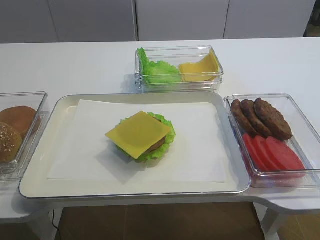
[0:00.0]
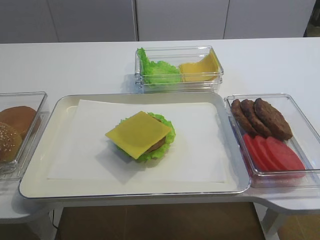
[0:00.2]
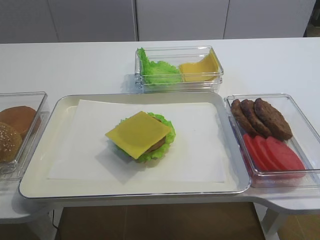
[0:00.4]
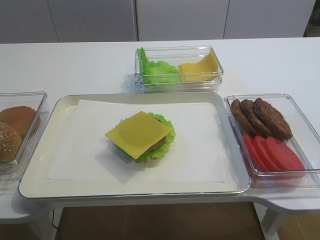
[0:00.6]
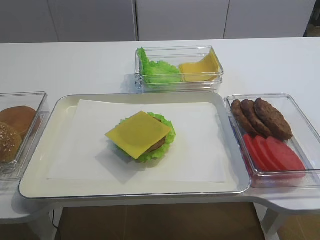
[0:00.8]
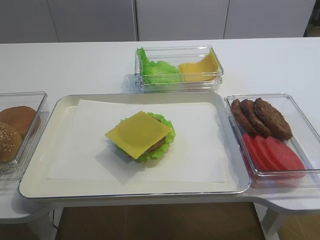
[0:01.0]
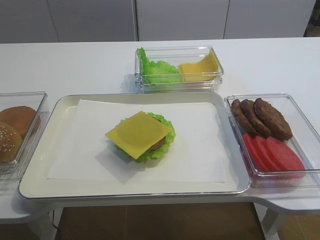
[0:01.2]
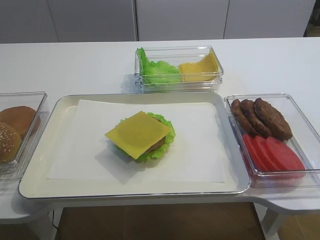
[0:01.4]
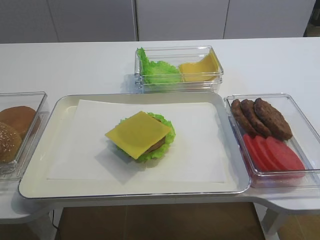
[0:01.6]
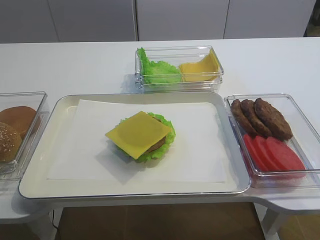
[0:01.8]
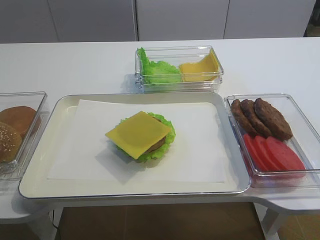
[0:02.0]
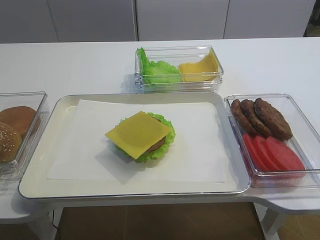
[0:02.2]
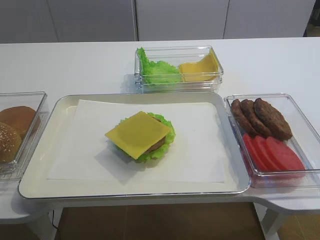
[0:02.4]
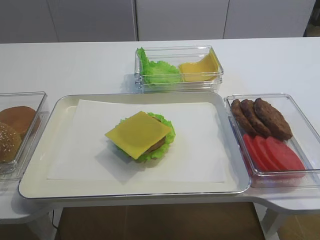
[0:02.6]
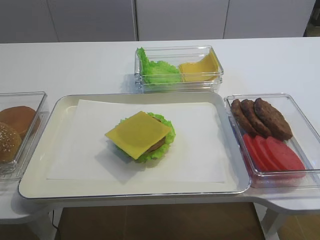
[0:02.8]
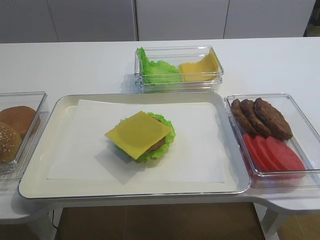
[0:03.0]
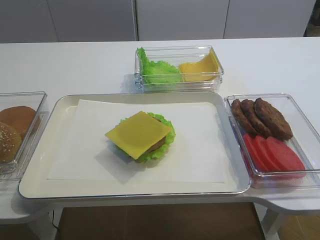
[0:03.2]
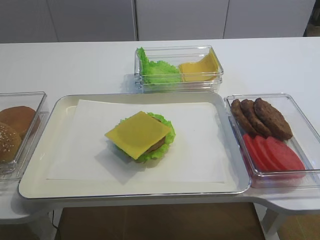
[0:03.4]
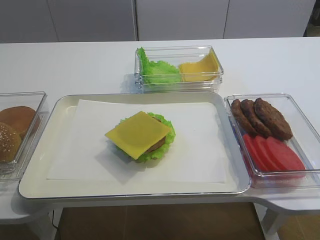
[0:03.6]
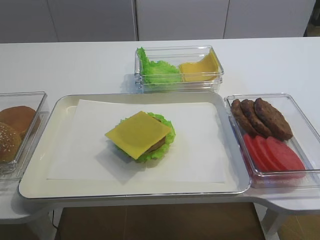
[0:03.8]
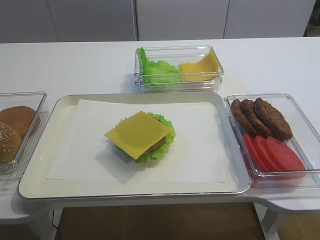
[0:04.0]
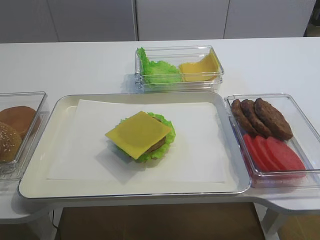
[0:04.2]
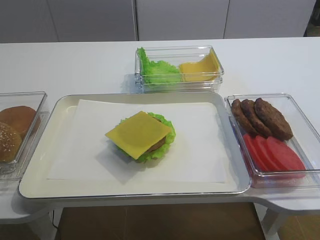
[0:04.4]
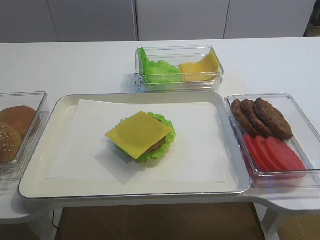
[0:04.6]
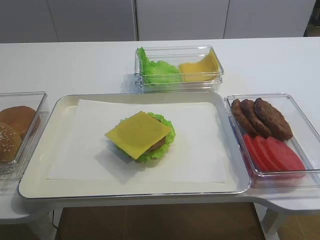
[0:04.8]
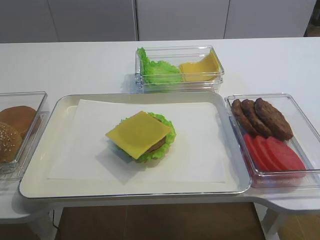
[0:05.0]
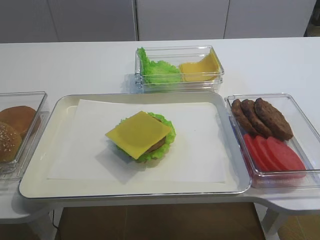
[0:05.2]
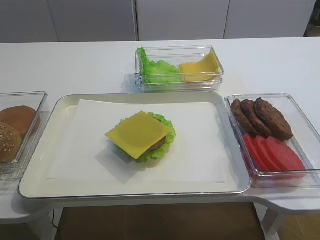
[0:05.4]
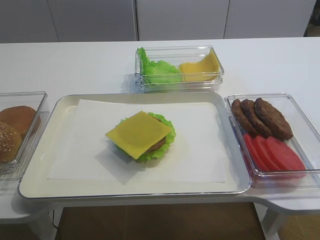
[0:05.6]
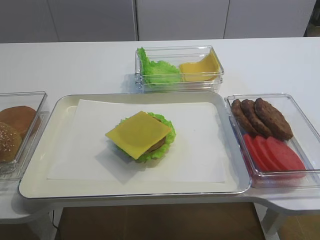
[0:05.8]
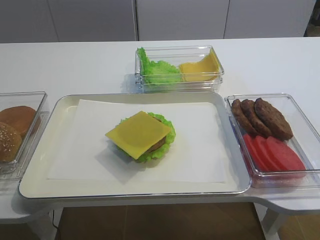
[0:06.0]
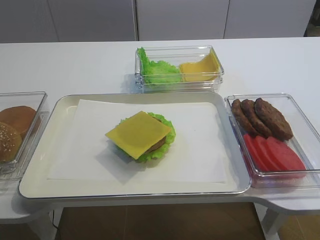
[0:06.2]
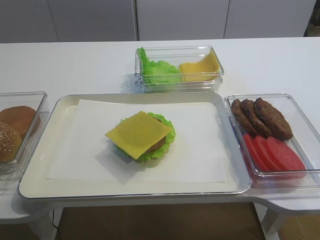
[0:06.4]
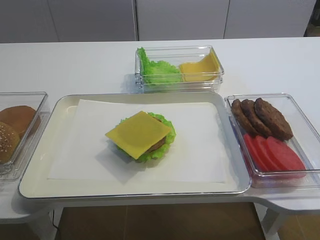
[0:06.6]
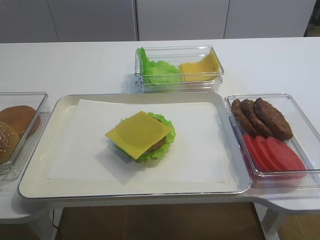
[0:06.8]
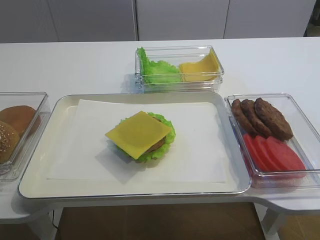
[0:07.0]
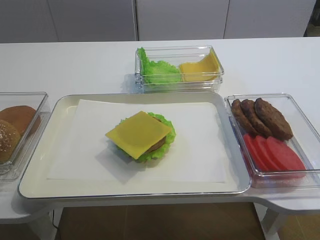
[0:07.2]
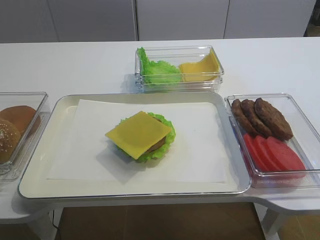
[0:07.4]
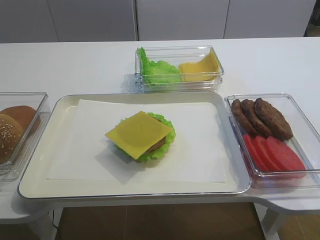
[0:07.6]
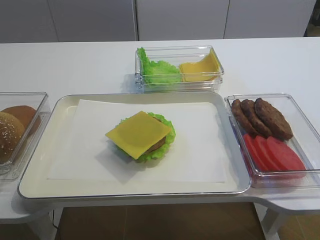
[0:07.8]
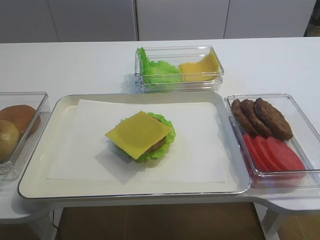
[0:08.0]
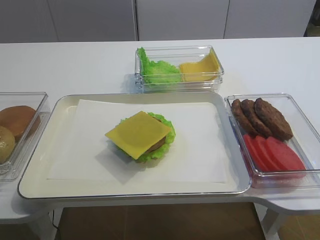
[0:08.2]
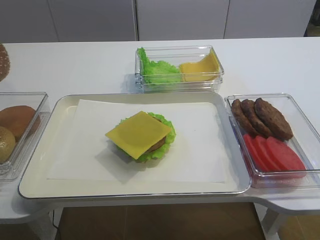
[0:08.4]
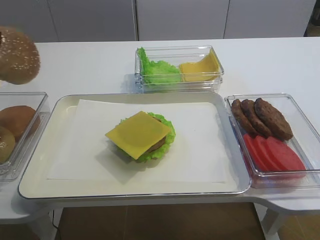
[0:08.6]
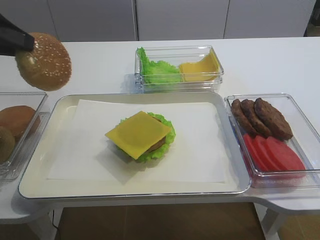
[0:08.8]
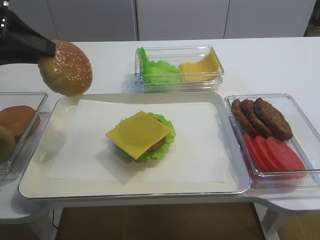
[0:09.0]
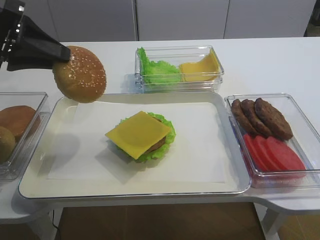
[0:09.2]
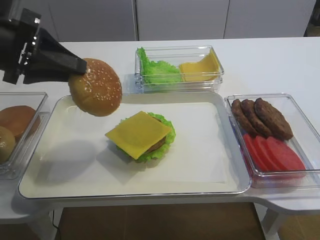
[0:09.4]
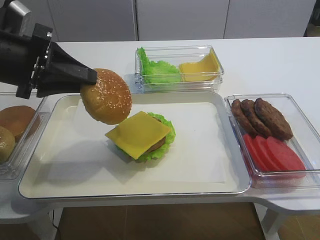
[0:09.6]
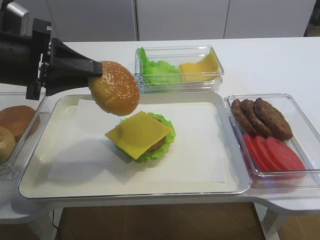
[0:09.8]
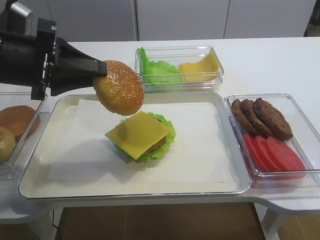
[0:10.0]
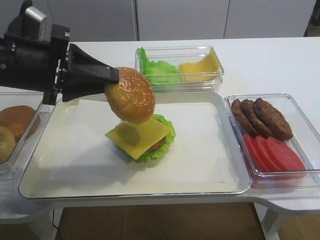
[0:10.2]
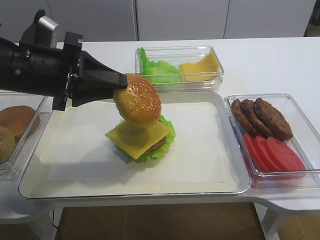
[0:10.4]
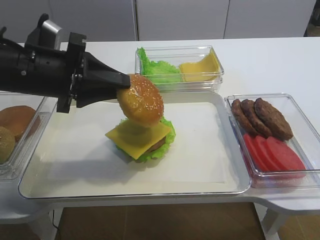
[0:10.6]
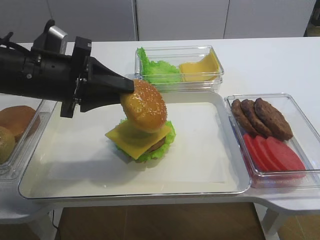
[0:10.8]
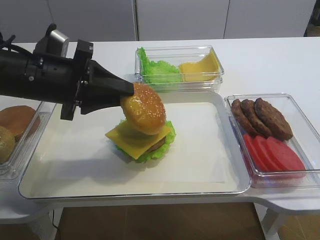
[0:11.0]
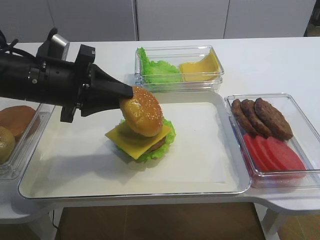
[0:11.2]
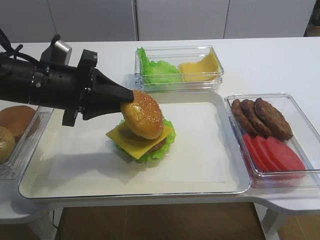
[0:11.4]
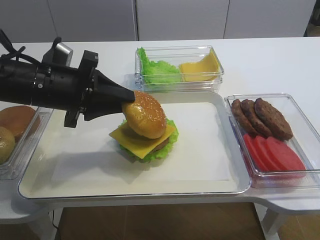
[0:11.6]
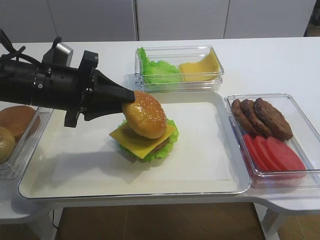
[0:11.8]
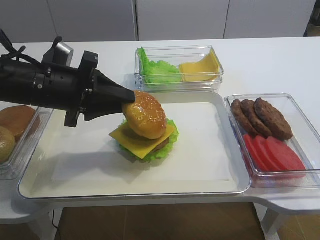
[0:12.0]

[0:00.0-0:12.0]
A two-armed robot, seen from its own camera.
0:07.6 to 0:09.0: The left gripper goes approximately 10 cm to the right.
0:09.0 to 0:10.4: The left gripper goes approximately 10 cm to the right and downward.
0:10.4 to 0:12.0: The grippers move only a little.

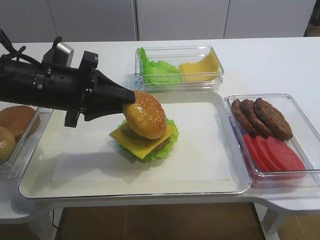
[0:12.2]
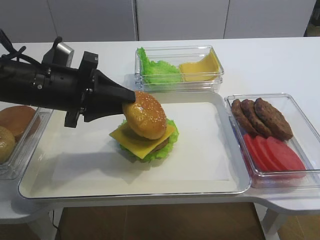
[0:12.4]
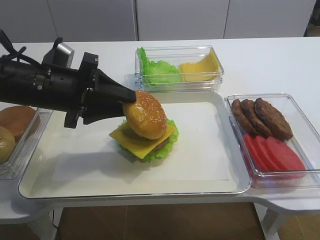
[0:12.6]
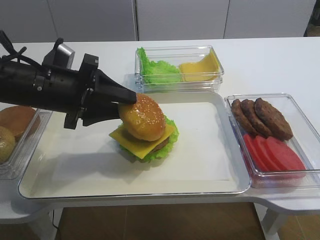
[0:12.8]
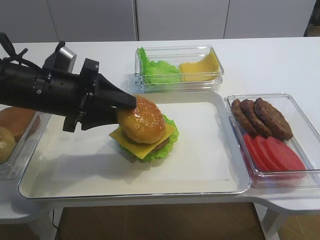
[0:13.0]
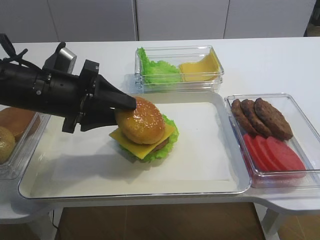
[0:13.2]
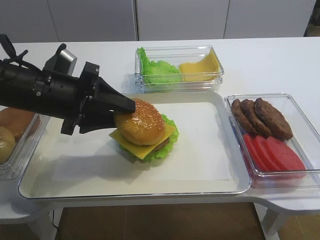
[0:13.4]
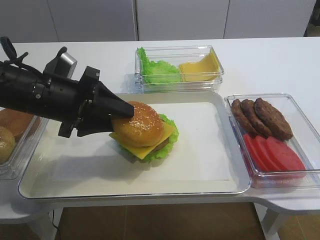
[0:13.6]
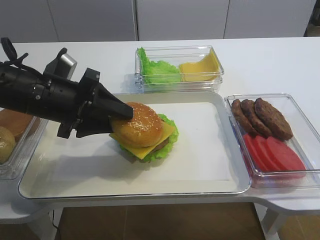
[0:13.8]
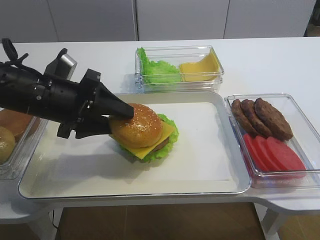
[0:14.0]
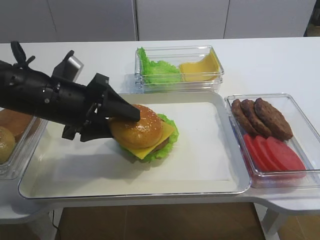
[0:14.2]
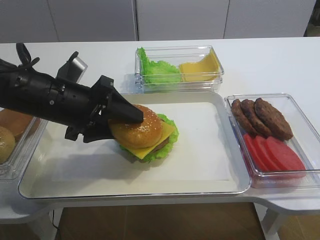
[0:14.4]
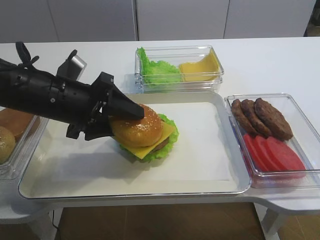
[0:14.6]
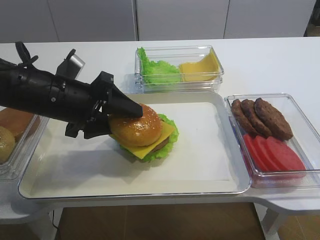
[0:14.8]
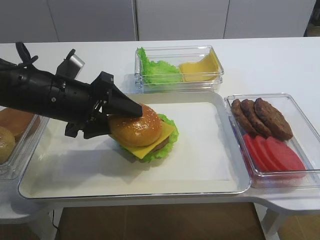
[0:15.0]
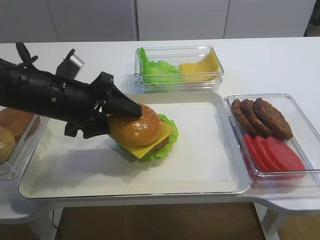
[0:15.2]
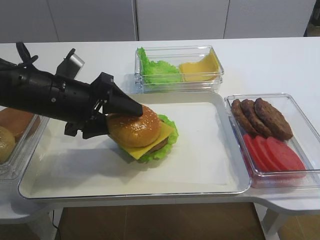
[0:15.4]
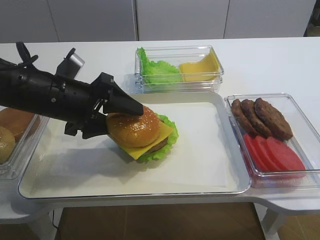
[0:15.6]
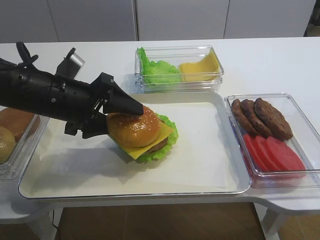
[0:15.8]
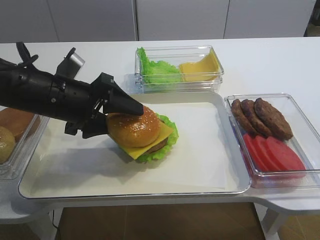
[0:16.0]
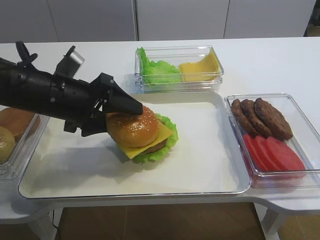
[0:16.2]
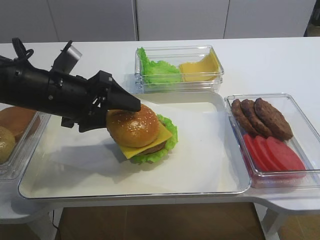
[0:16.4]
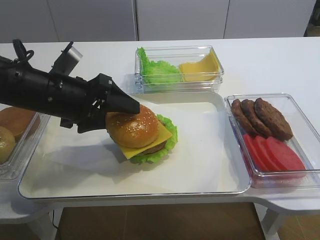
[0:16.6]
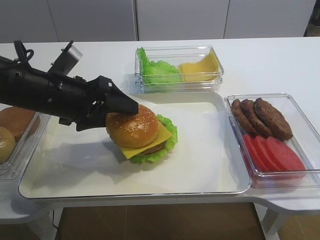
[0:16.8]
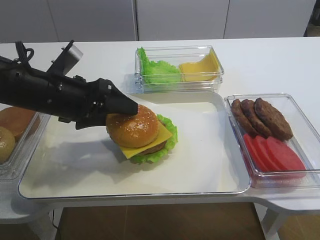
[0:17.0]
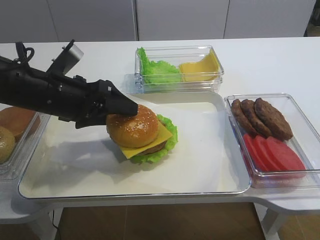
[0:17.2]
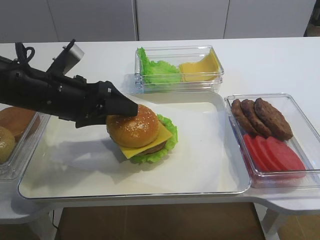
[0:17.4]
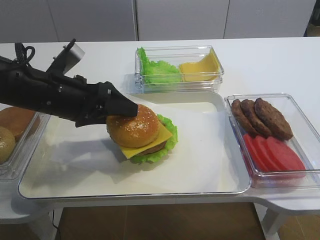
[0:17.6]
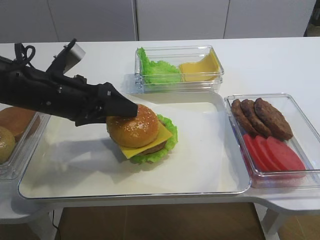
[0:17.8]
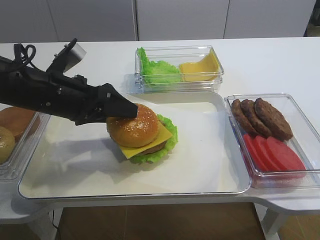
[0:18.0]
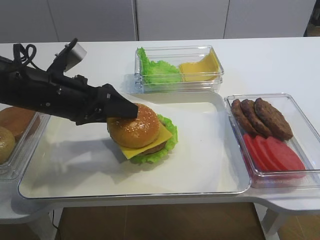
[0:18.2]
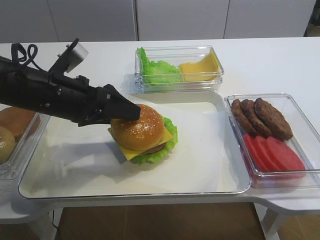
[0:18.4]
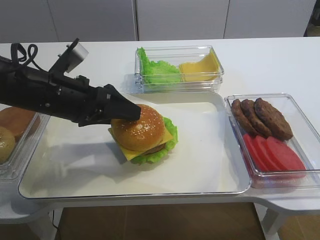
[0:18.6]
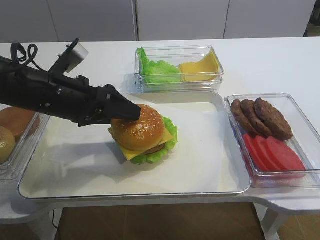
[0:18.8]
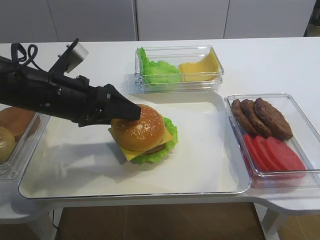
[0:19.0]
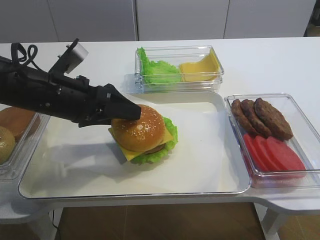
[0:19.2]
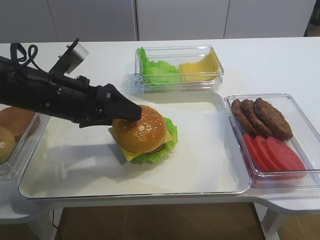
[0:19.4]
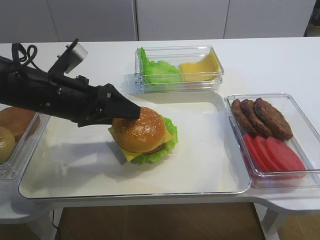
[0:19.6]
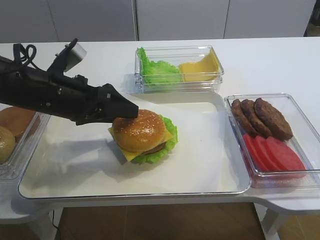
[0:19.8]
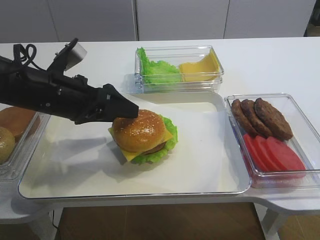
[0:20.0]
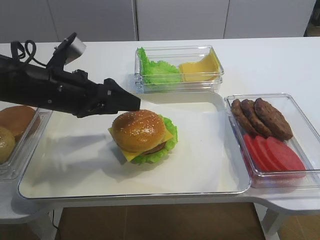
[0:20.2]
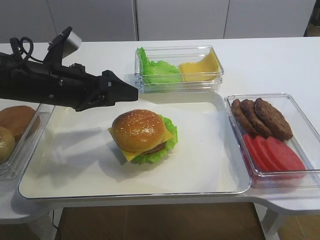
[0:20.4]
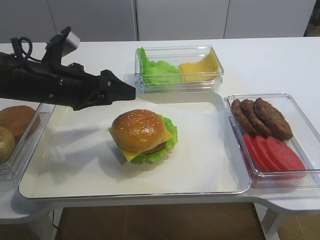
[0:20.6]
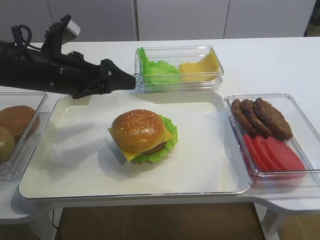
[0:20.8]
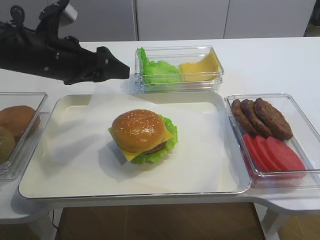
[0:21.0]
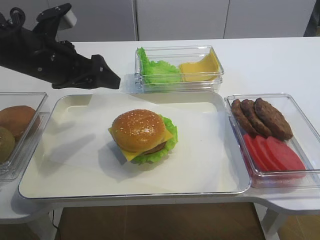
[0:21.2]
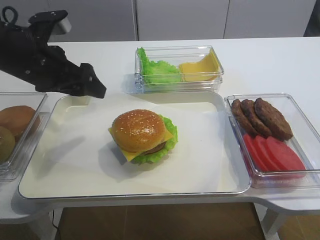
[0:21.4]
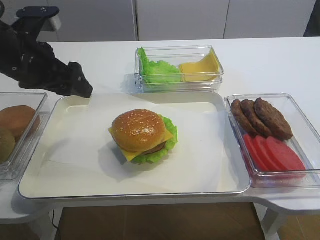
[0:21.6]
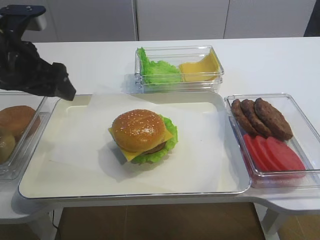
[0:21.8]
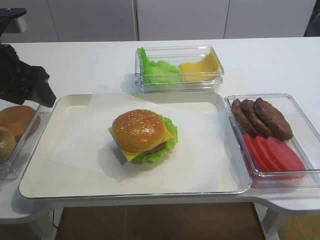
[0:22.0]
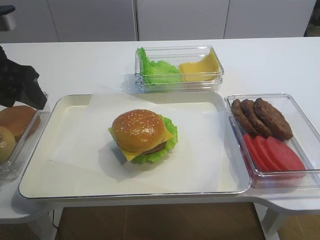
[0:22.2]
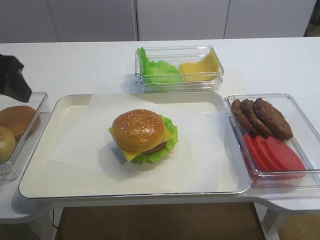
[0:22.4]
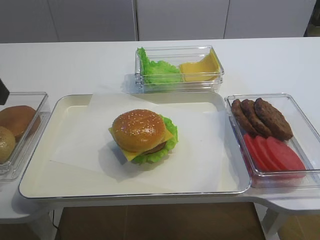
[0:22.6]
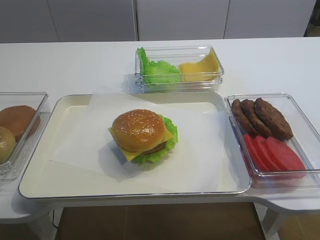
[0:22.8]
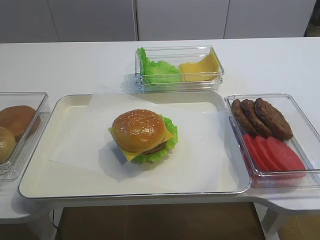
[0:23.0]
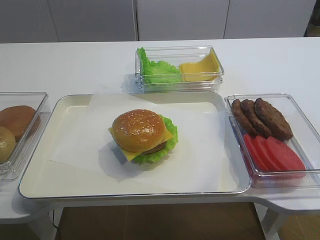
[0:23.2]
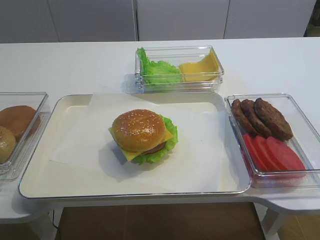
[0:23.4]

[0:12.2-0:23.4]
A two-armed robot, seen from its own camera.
Step, 0:12.2 to 0:20.4: Place the hamburger lid on the cheese slice with the left gripper.
0:12.2 to 0:13.8: The left gripper opens up.
0:13.8 to 0:17.0: The grippers stay close to where they were, moving slightly.
0:17.0 to 0:20.2: There are only small adjustments of the grippers.
0:20.2 to 0:21.8: The left gripper shifts roughly 10 cm upward and to the left.
0:21.8 to 0:23.4: The left gripper goes approximately 25 cm backward and upward.
